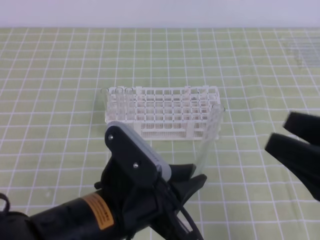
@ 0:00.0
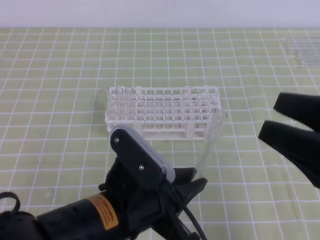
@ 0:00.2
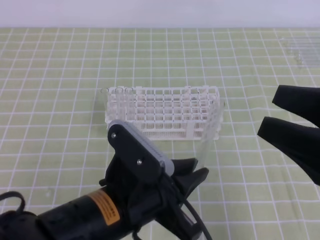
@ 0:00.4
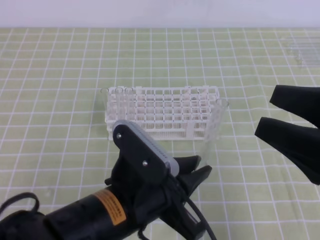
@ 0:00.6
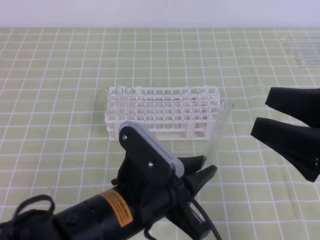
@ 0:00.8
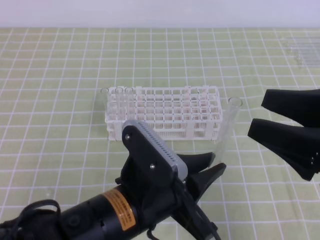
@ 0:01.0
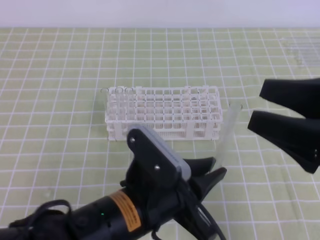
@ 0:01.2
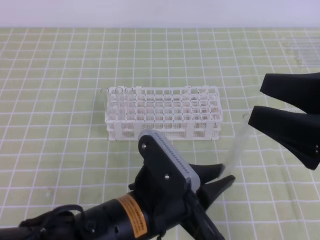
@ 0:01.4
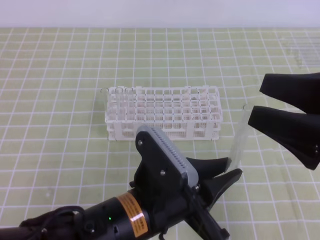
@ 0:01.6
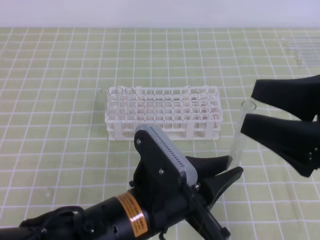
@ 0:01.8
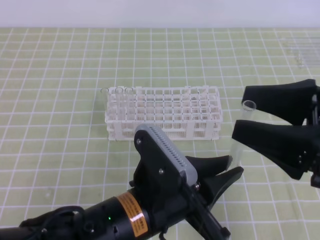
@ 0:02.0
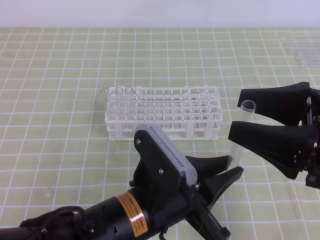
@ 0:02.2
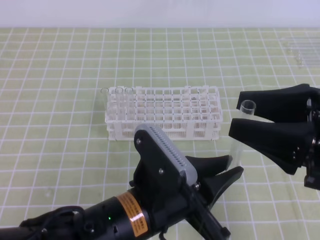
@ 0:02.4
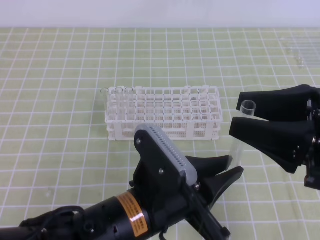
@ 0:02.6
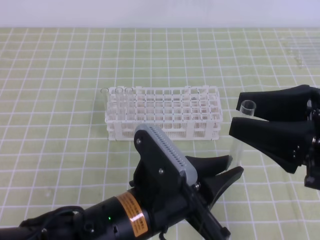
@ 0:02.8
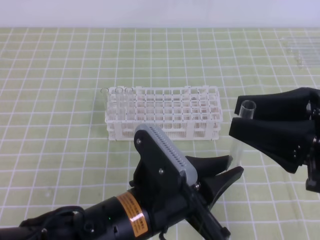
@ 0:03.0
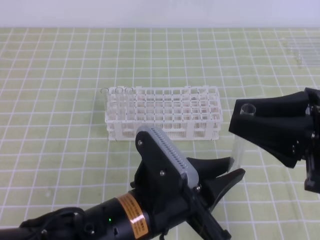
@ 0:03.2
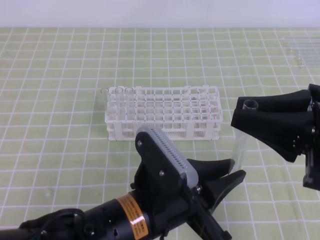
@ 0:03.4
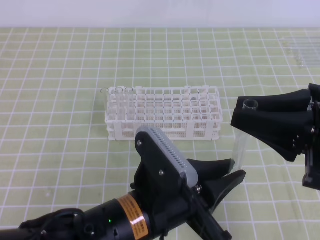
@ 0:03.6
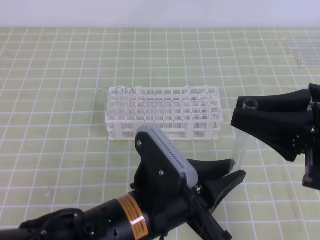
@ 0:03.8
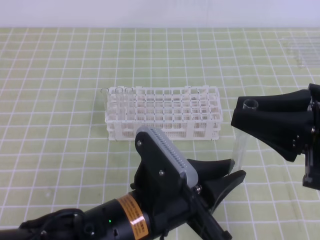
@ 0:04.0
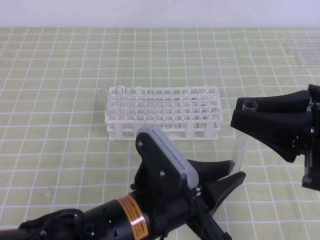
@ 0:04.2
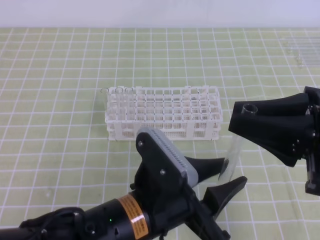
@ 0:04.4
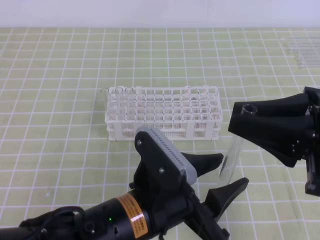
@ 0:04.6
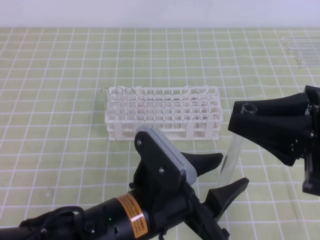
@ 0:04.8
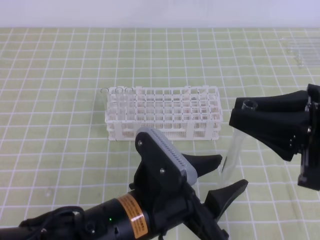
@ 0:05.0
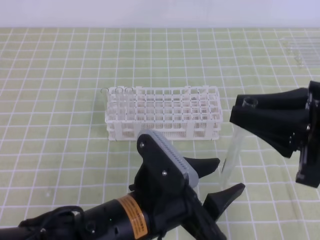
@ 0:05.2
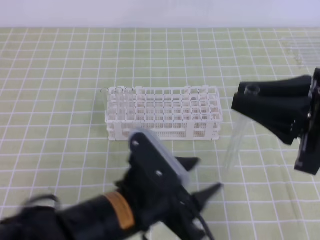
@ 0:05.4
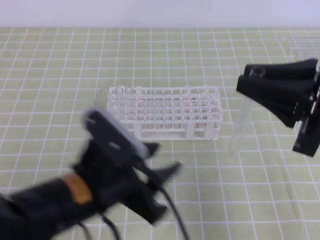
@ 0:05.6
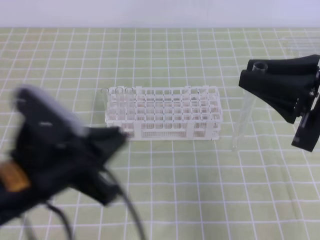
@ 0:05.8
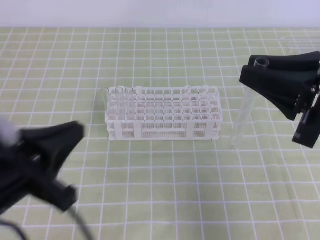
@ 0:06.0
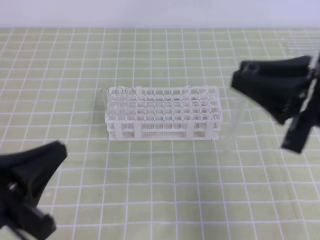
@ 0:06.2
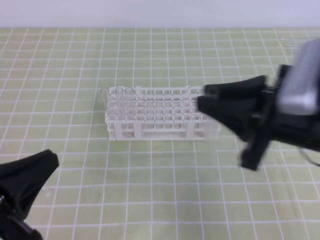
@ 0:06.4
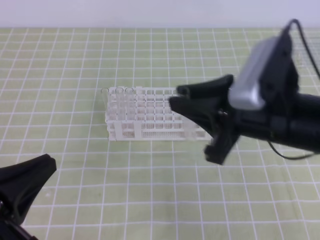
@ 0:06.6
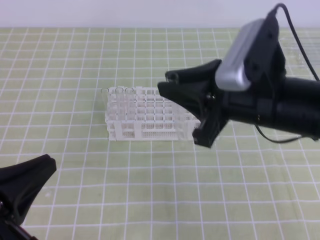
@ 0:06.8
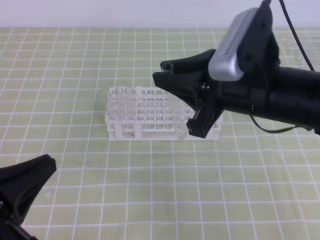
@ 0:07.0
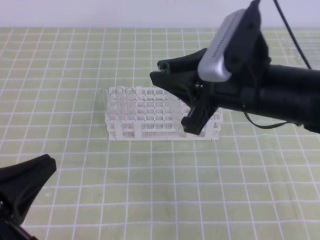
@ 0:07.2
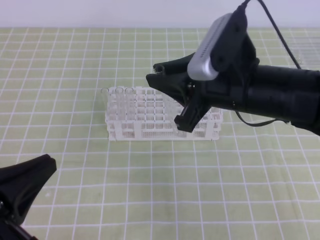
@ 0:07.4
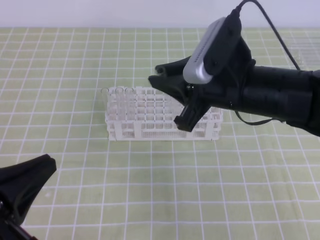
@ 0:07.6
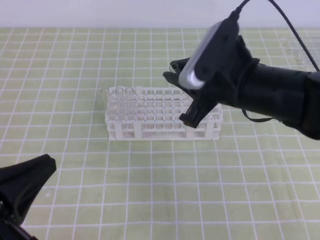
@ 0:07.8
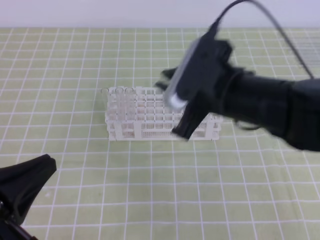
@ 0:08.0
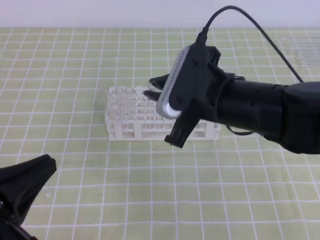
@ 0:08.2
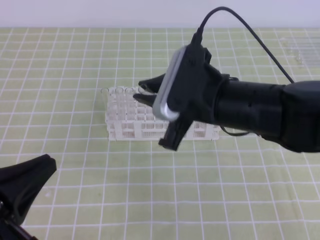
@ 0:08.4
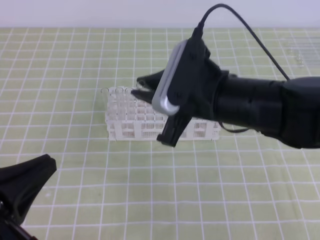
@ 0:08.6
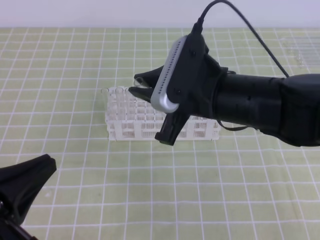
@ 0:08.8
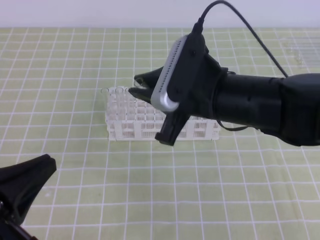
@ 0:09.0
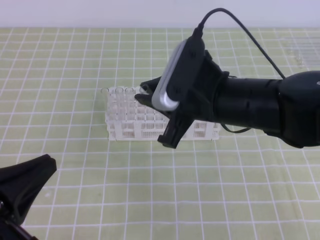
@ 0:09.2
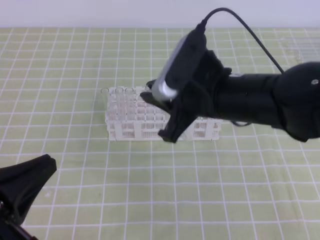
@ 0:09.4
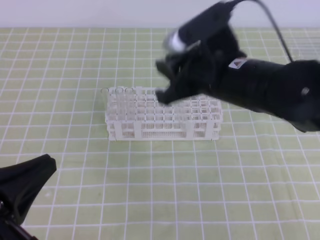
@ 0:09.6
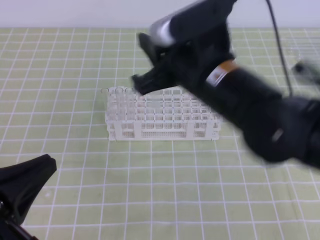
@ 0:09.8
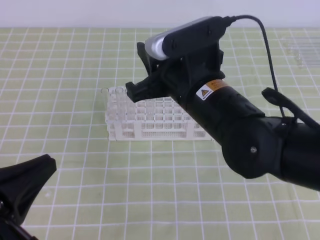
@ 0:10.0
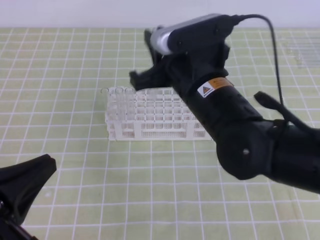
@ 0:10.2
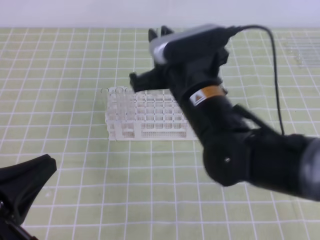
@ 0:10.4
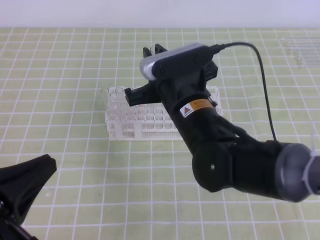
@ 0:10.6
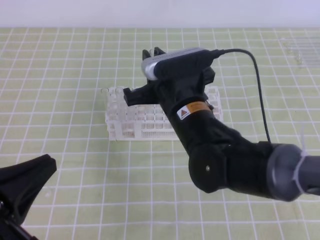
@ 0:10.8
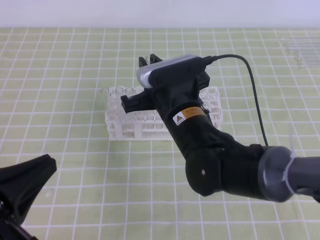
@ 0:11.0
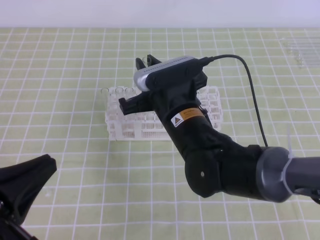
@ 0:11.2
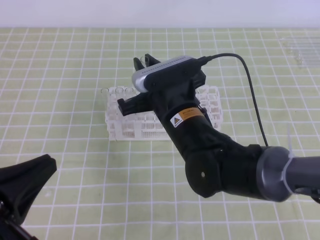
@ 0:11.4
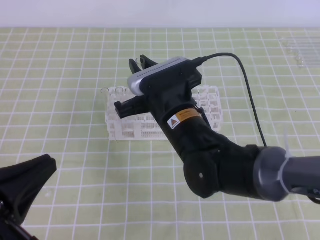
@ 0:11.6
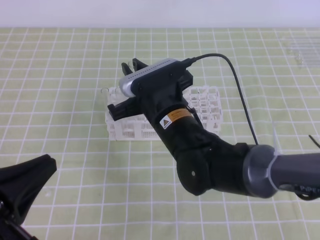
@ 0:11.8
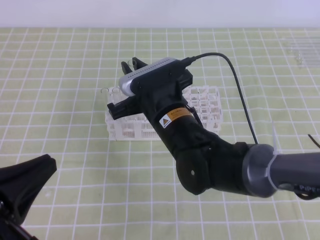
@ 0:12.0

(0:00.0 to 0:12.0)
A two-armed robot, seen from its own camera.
0:00.0 - 0:01.6: The right gripper moves forward, about 5 cm.
0:01.6 - 0:03.0: The right gripper closes its fingers.
0:03.0 - 0:04.4: The left gripper opens up. Meanwhile the right gripper closes up.
0:04.4 - 0:06.0: The left gripper shifts roughly 15 cm to the left, and closes up.
0:06.0 - 0:07.6: The right gripper goes about 15 cm to the left and forward; the left gripper is displaced to the left and backward by approximately 10 cm.
0:07.6 - 0:09.0: The grippers make only small movements.
0:10.4 - 0:12.0: The right gripper is displaced downward by about 5 cm.

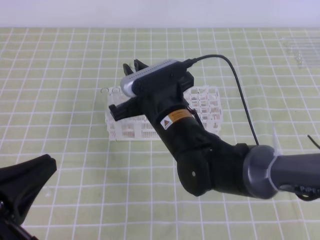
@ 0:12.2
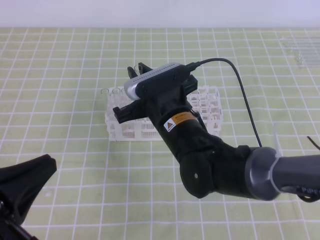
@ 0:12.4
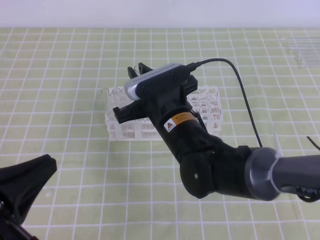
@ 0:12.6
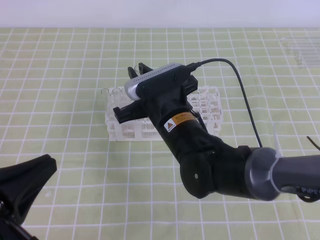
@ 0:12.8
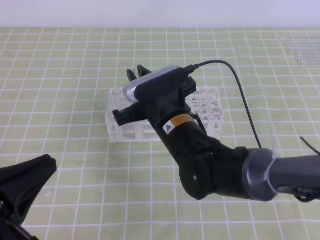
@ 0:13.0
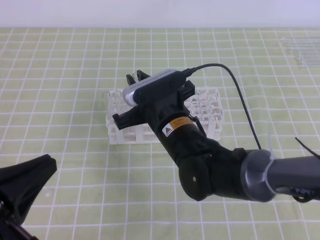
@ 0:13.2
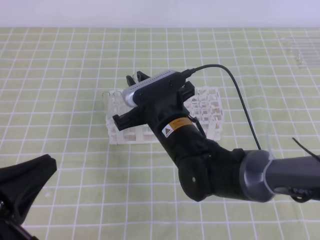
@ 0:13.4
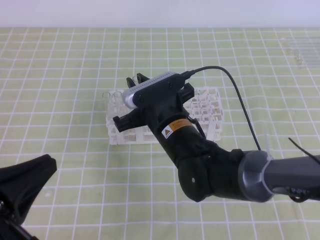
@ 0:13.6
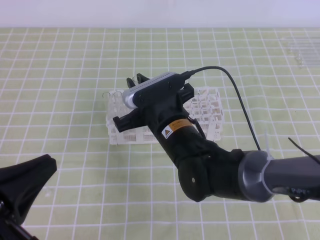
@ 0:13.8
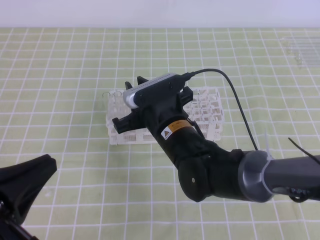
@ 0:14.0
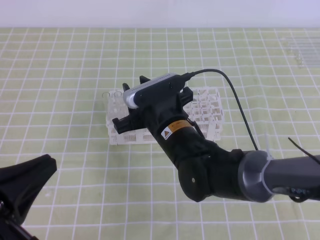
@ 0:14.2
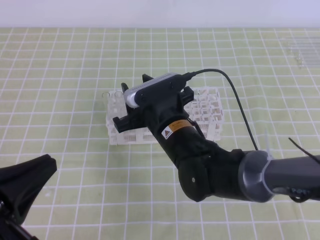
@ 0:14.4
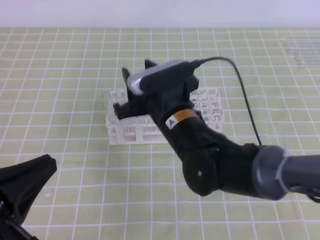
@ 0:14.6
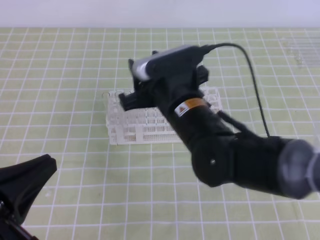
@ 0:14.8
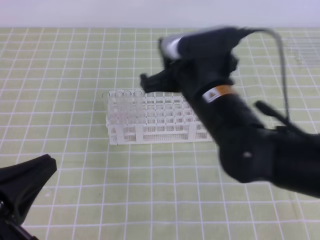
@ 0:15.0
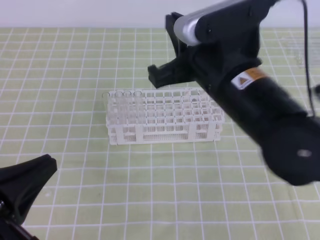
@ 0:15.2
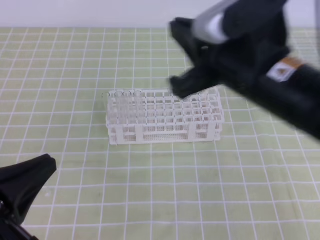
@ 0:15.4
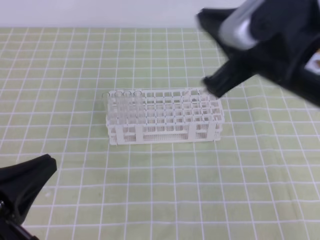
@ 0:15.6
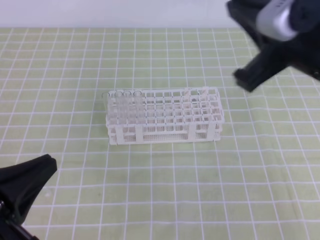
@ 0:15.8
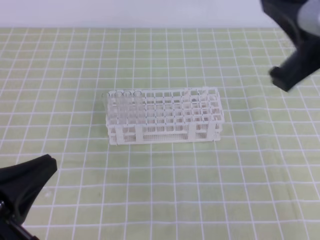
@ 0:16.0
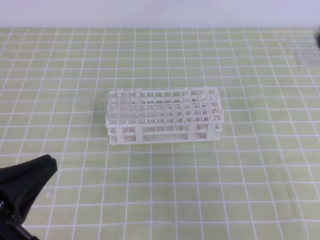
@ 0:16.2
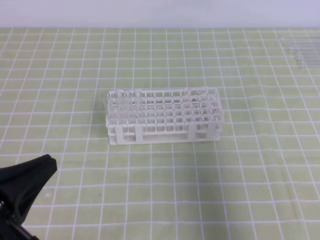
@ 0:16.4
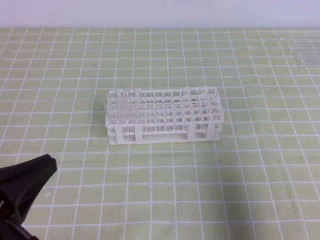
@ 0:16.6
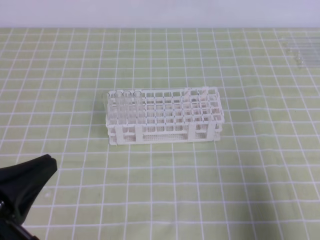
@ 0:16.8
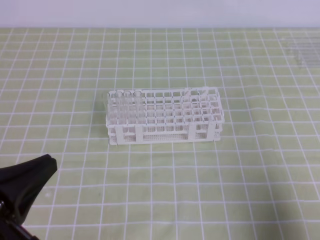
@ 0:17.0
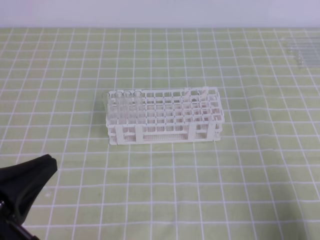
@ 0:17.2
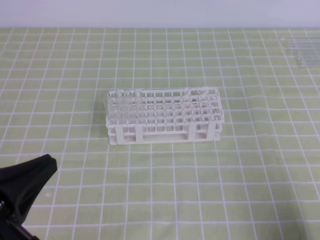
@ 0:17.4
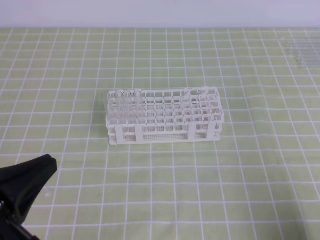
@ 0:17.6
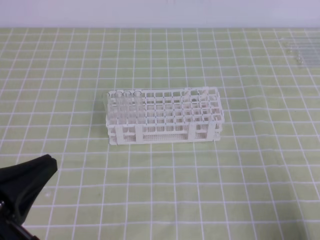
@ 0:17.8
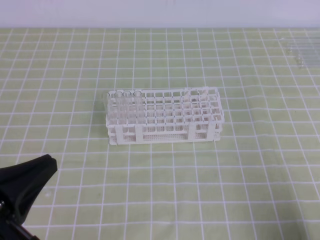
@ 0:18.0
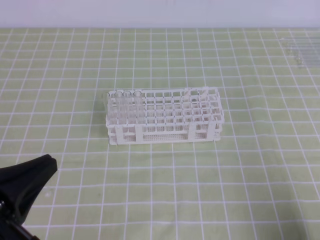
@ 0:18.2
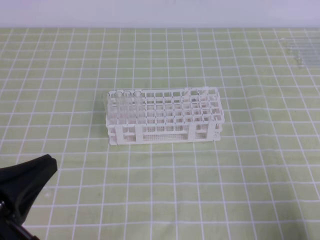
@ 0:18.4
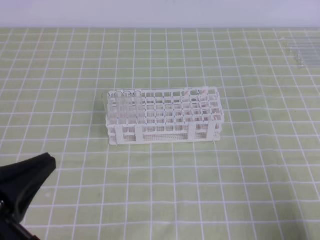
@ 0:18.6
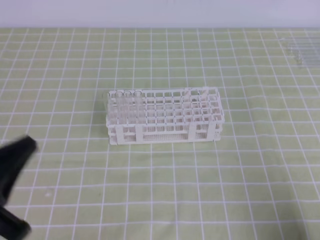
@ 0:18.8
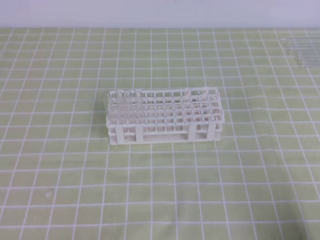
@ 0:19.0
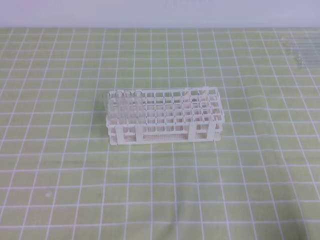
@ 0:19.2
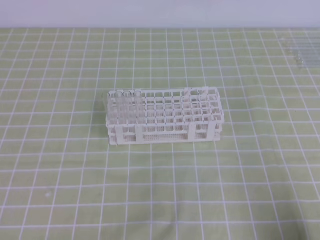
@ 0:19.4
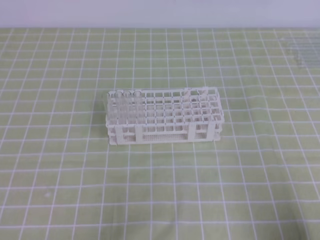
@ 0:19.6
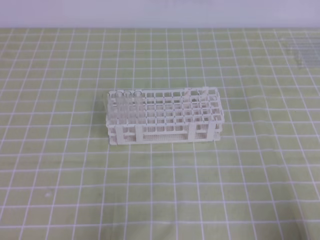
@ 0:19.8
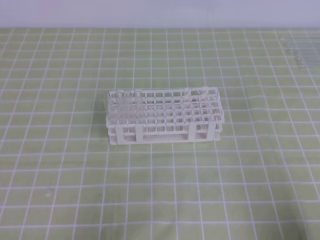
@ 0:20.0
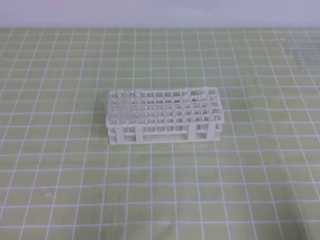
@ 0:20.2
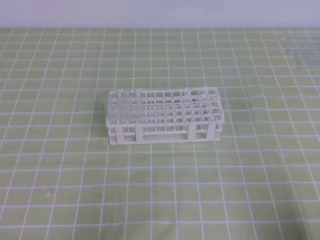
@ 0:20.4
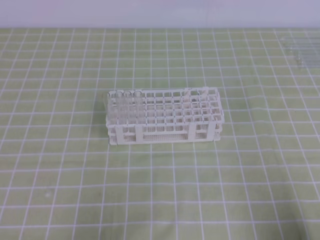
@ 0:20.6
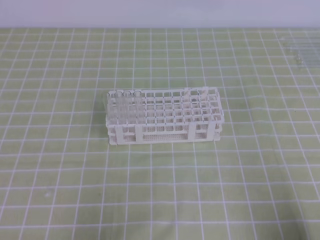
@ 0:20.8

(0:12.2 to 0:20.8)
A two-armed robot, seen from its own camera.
0:12.2 - 0:13.6: The grippers stay close to where they were, moving slightly.
0:13.6 - 0:15.0: The right gripper heads upward, covering approximately 5 cm.
0:15.0 - 0:16.6: The right gripper moves to the right and backward, roughly 30 cm, and closes up.
0:16.6 - 0:18.0: The right gripper goes roughly 15 cm downward.
0:18.0 - 0:19.4: The left gripper heads to the left, covering some 5 cm.
0:19.4 - 0:20.8: The left gripper moves downward, about 10 cm.
